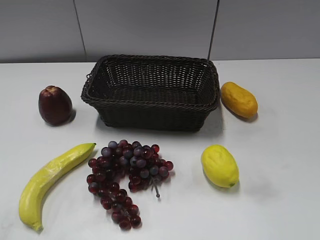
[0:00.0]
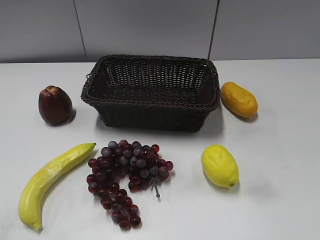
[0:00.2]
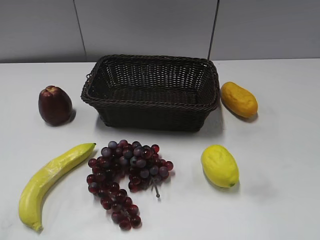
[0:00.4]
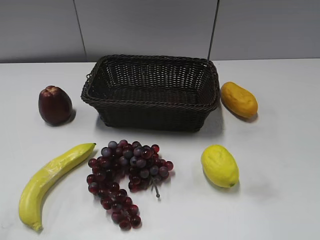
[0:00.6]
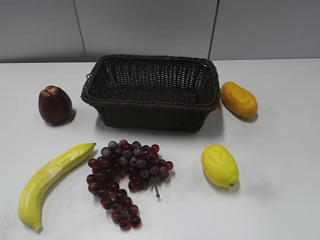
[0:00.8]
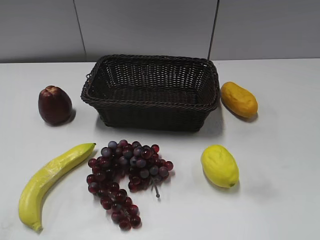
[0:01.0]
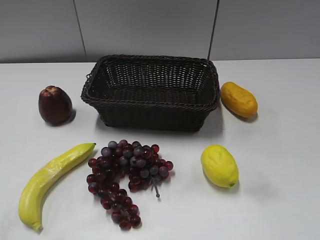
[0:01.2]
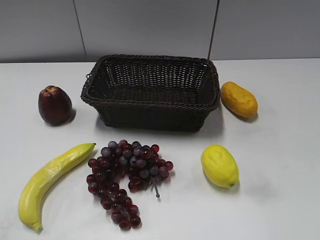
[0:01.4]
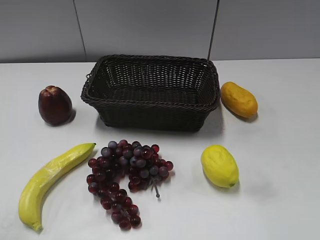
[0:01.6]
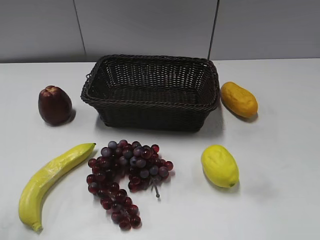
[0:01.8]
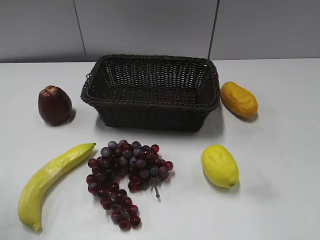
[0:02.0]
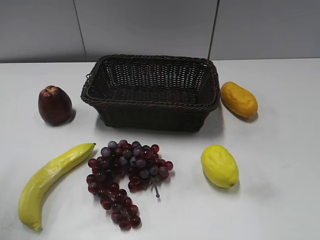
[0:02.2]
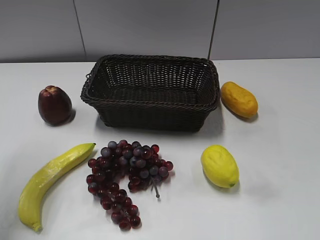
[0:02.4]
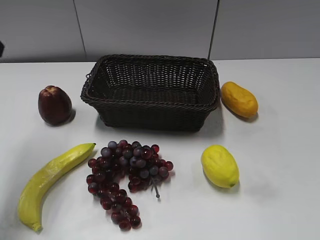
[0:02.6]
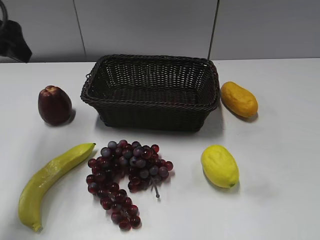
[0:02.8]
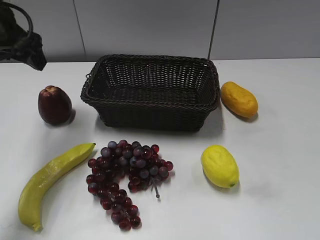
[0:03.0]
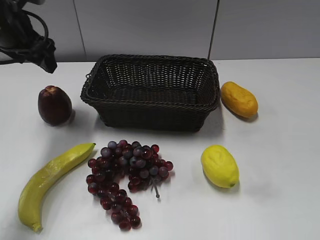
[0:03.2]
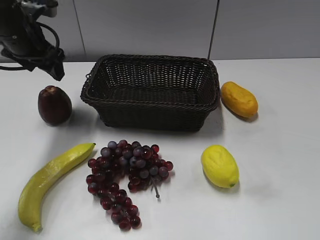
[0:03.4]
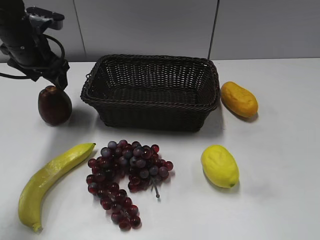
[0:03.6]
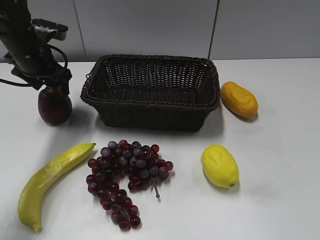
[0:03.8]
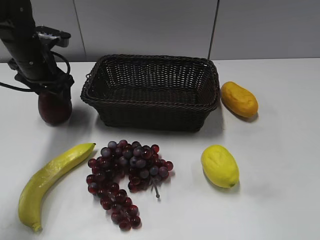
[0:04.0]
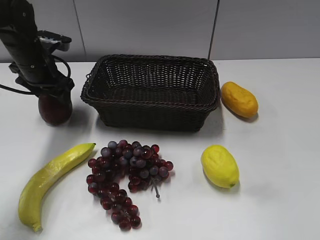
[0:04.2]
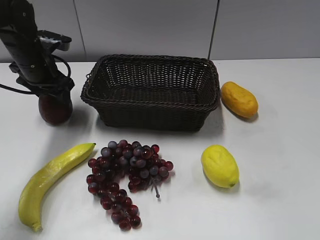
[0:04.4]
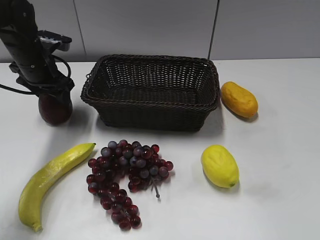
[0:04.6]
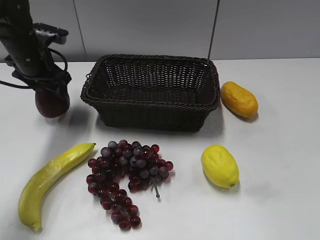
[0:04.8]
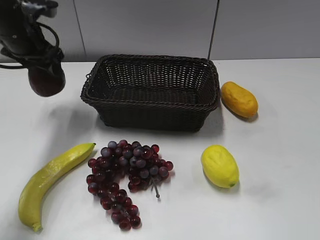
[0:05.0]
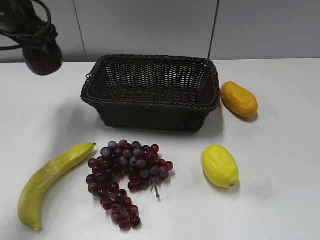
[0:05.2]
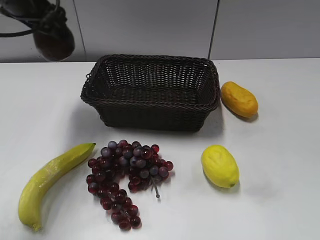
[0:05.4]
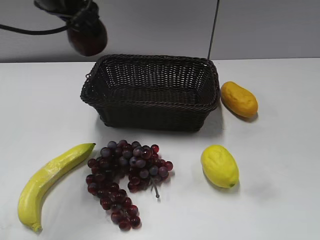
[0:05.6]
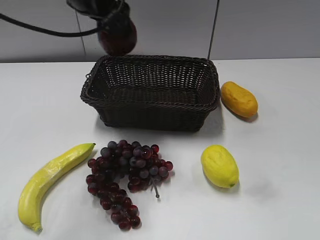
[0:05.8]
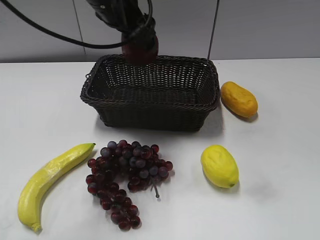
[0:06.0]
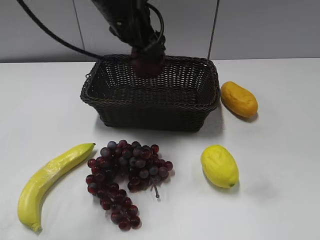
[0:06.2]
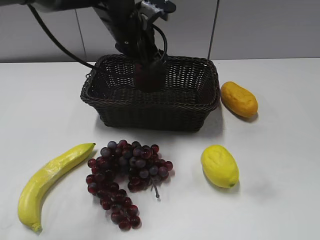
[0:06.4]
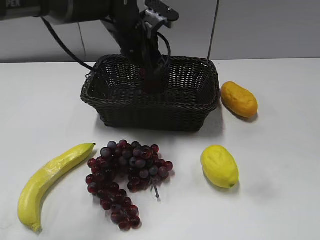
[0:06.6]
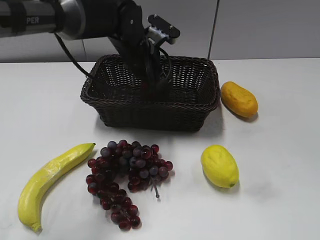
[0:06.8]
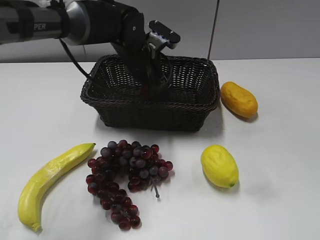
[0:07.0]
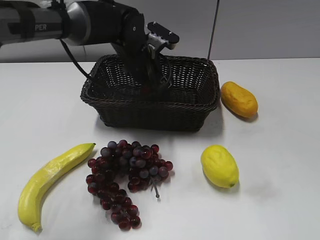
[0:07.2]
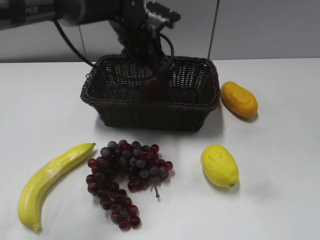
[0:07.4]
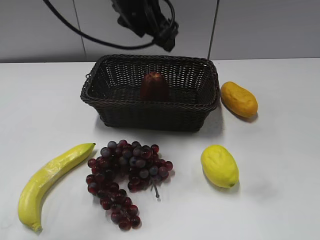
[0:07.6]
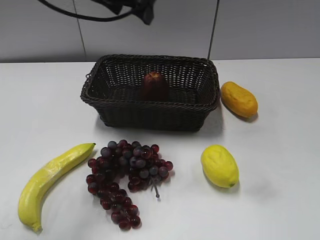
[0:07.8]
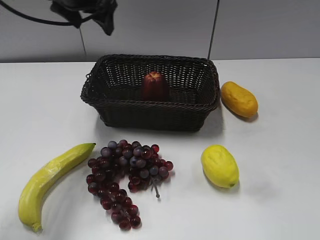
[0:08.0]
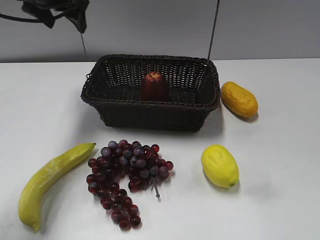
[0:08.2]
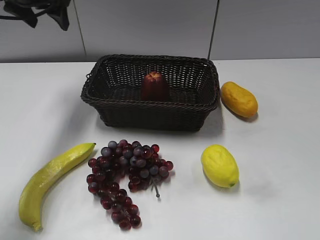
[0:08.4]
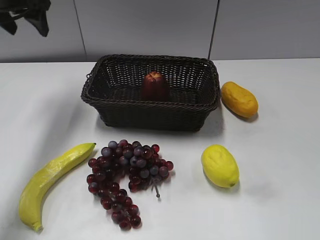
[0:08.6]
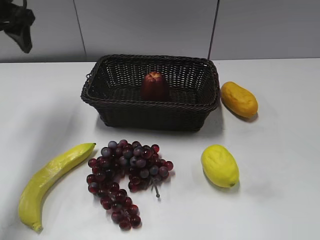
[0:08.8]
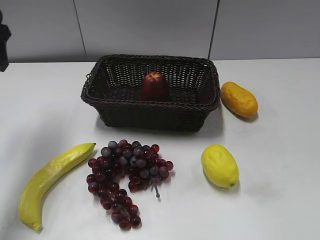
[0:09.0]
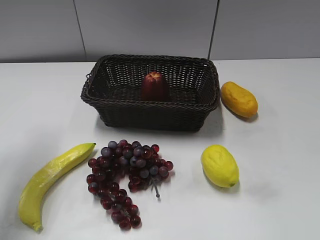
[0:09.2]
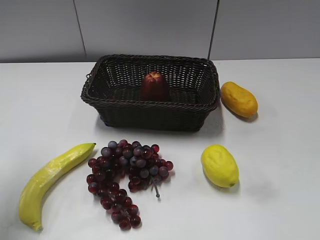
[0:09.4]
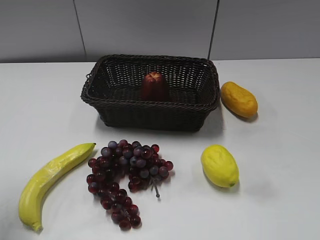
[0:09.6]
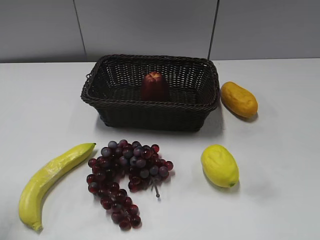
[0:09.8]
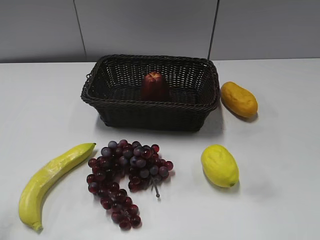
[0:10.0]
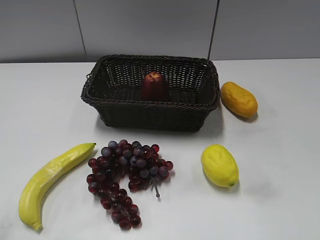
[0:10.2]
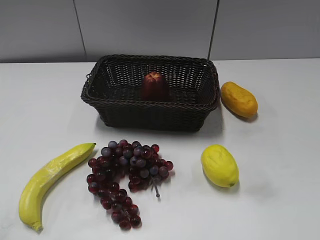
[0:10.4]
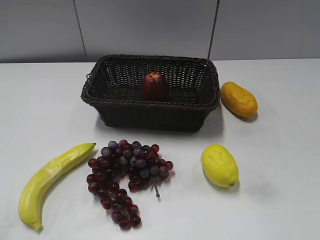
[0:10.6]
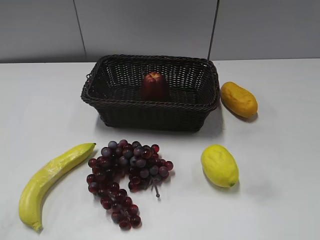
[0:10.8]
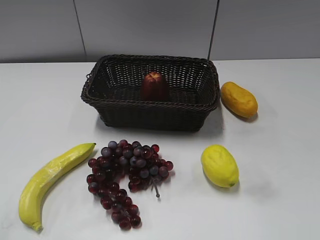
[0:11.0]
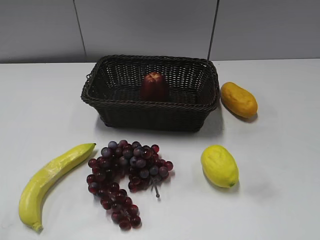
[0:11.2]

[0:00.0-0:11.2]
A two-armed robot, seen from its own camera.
Step, 0:02.6 to 0:04.2: Grasp the apple with left gripper.
Step, 0:04.4 to 0:07.0: Place the apple in the basket with left gripper.
0:01.6 to 0:03.2: The left gripper shifts roughly 30 cm forward.
0:03.2 to 0:04.8: The left gripper goes some 5 cm downward.
0:04.8 to 0:06.4: The left gripper heads to the right, covering approximately 20 cm.
0:06.4 to 0:08.0: The left gripper is displaced to the left, upward and forward by roughly 15 cm, and opens up.
0:08.0 to 0:09.6: The left gripper shifts about 30 cm backward and to the left, and closes up.
0:09.6 to 0:11.2: The left gripper moves backward, roughly 20 cm.

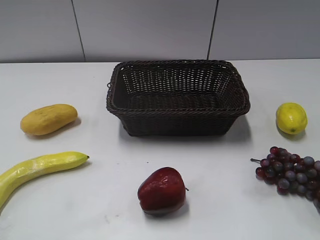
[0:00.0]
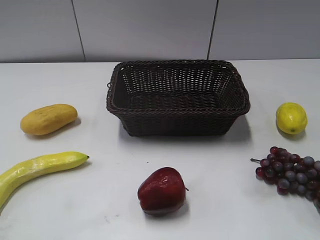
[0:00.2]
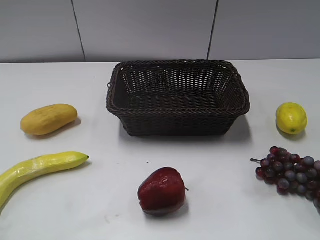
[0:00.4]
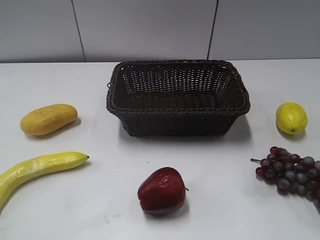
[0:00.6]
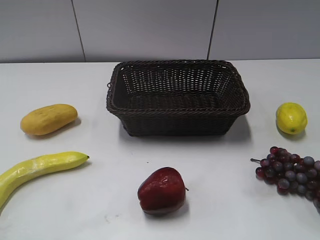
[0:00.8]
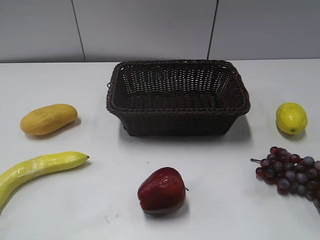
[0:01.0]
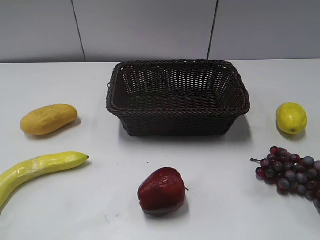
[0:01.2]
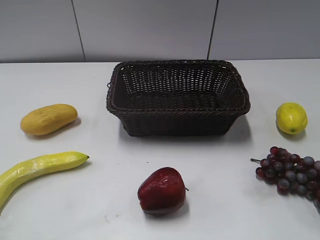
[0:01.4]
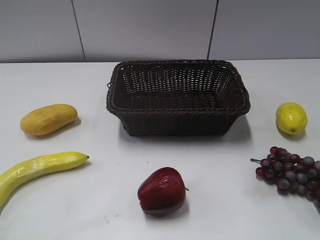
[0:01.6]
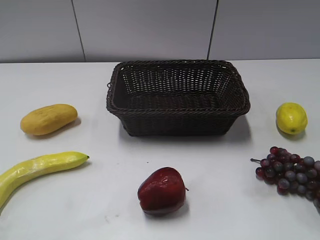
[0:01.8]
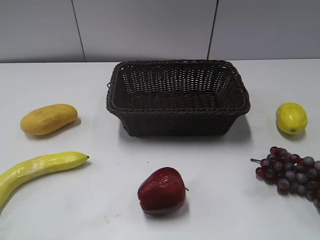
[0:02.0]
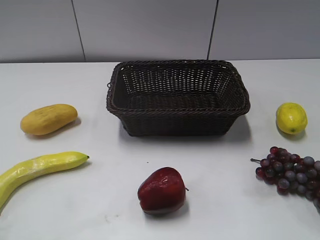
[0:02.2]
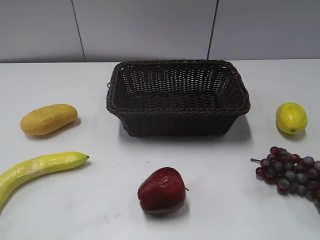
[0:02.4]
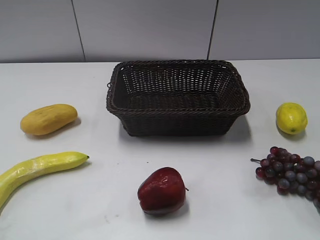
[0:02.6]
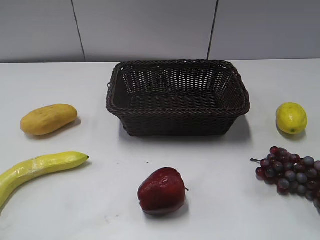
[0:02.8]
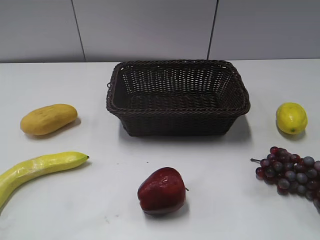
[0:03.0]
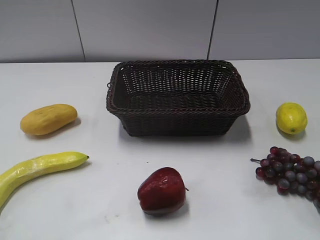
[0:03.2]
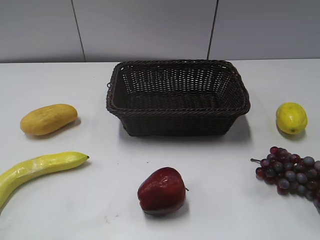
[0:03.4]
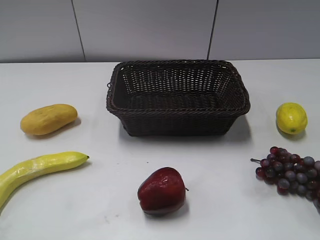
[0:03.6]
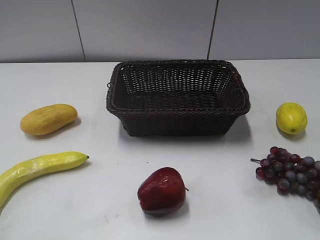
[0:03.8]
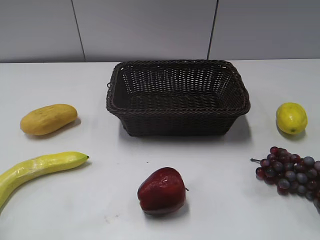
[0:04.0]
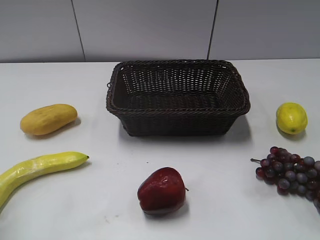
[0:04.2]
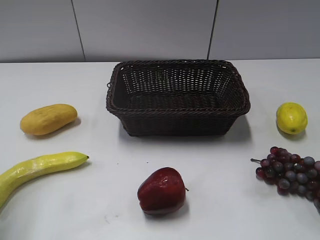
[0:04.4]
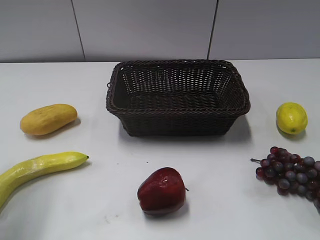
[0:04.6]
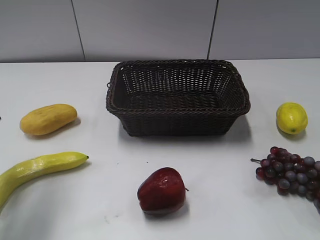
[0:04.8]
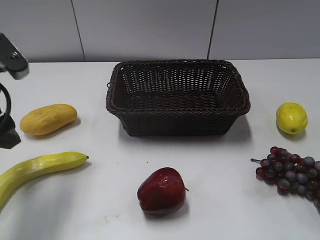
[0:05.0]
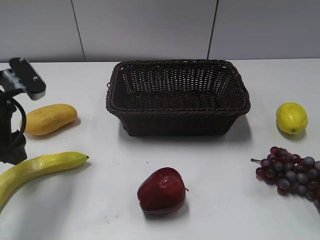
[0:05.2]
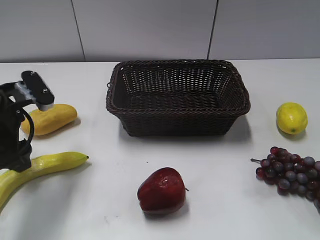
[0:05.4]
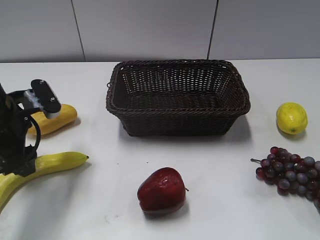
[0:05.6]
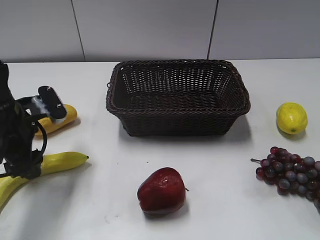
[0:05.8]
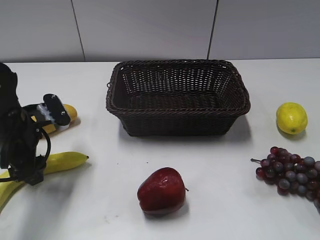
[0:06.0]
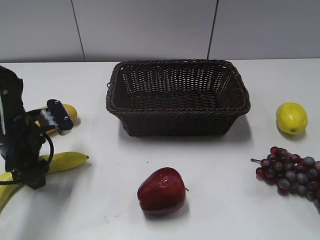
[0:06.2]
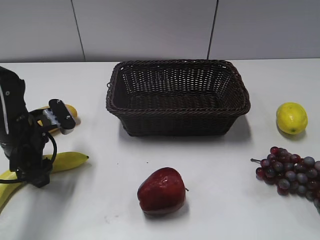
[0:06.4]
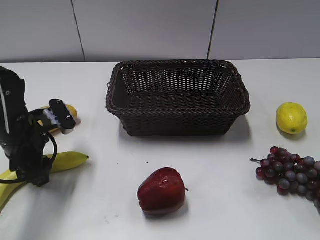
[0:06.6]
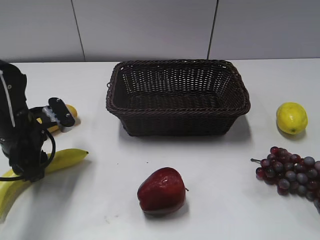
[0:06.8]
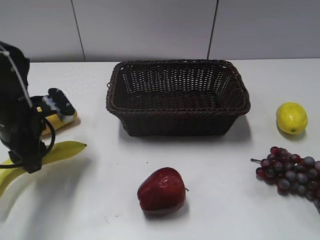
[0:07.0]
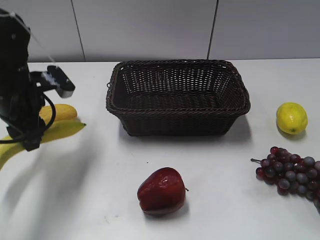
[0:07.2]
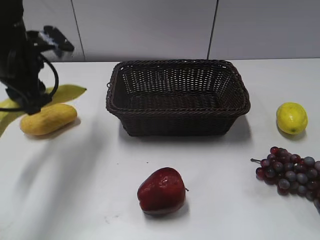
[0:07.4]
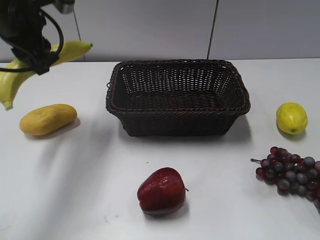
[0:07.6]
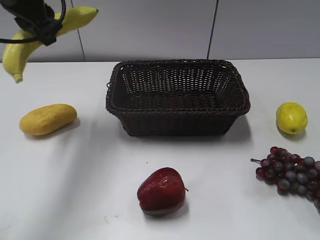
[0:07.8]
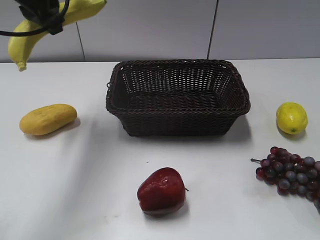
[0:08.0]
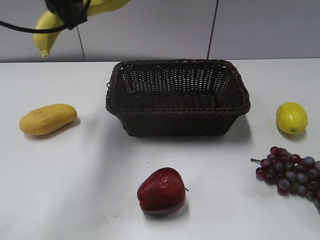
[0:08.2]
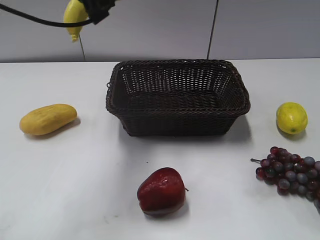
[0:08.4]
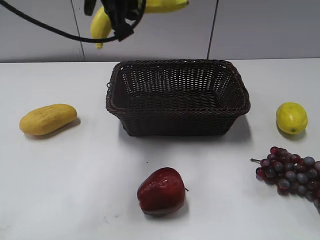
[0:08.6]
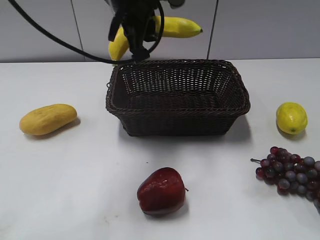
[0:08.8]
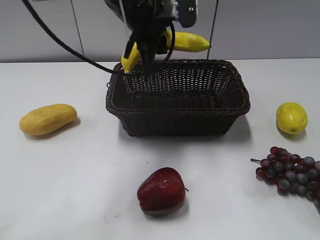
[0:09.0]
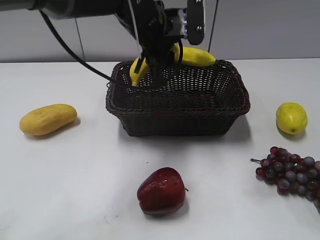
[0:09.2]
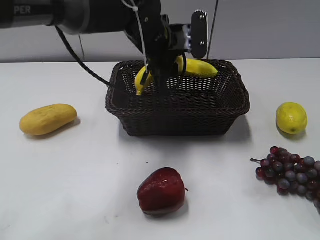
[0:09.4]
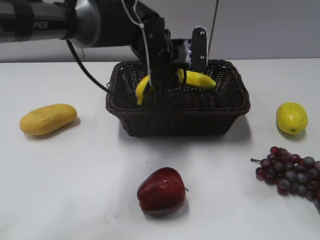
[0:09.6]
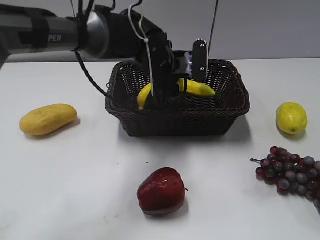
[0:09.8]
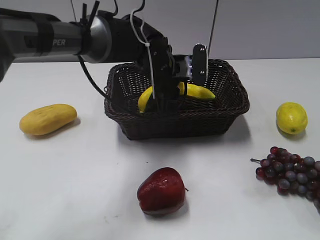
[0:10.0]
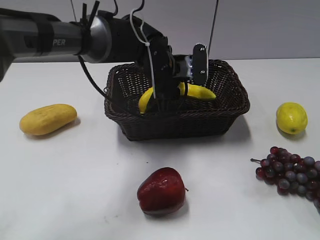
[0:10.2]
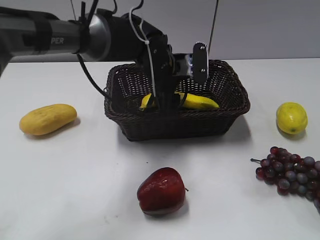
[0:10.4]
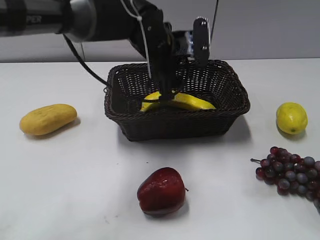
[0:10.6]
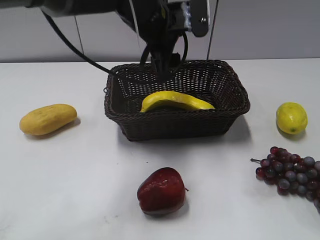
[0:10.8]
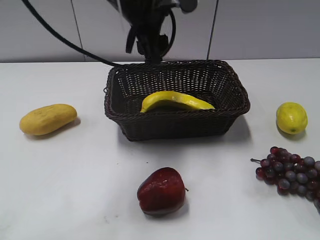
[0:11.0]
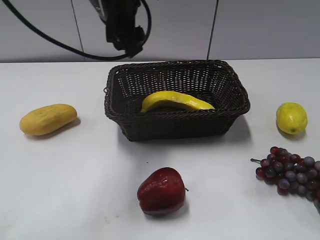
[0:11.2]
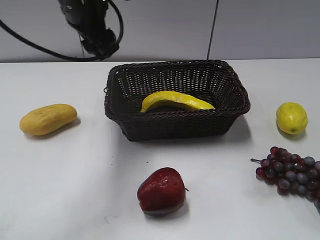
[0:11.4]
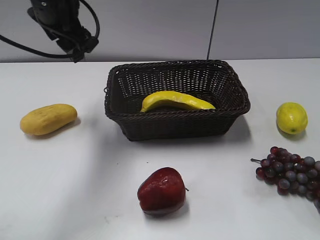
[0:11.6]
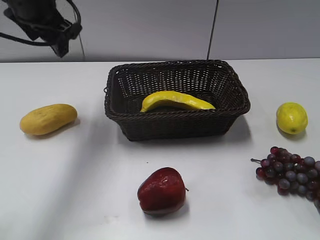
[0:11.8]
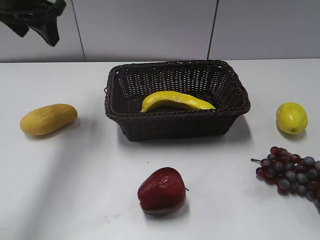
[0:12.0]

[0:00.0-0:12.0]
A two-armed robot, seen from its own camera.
Step, 0:04.8 to 0:07.0: Grasp the banana with left gripper.
Step, 0:07.2 to 0:10.8: Place the banana in the basket with left gripper.
0:01.6 to 0:03.0: Both grippers stay about where they are.
0:03.0 to 0:04.4: The left gripper moves forward, about 15 cm, and opens.
0:04.4 to 0:06.0: The left gripper is displaced downward, forward and to the right by roughly 25 cm.
0:06.0 to 0:07.6: The left gripper heads upward and forward, covering some 15 cm, and closes up.
0:07.6 to 0:09.0: The left gripper travels to the right by approximately 15 cm.
0:09.0 to 0:10.4: The left gripper heads downward, covering some 10 cm, and opens its fingers.
0:10.4 to 0:12.0: The left gripper goes some 25 cm to the left and upward.
